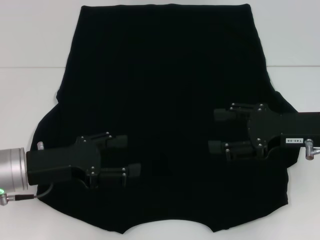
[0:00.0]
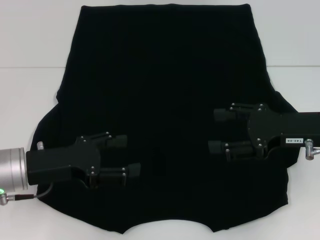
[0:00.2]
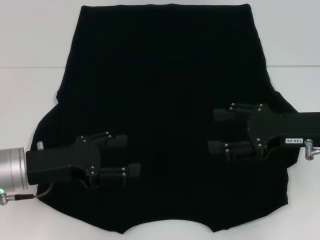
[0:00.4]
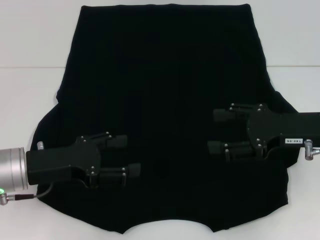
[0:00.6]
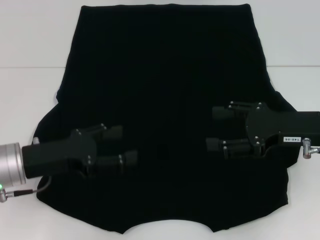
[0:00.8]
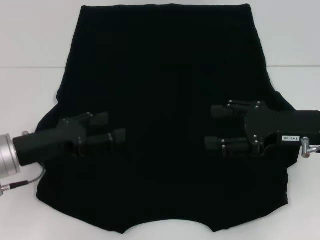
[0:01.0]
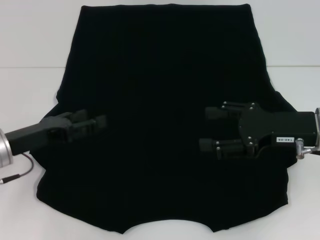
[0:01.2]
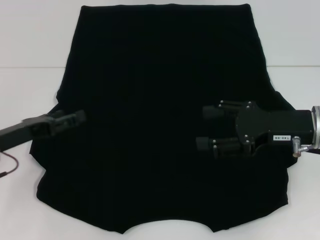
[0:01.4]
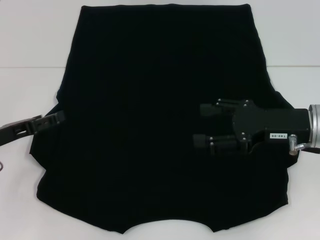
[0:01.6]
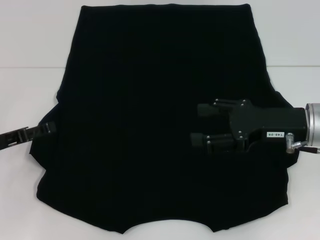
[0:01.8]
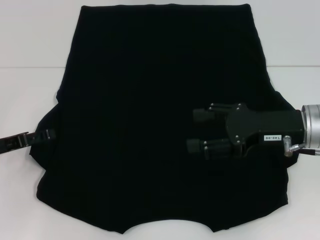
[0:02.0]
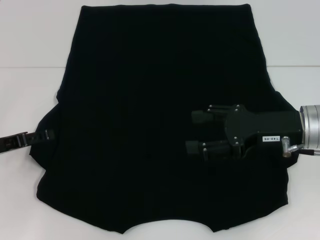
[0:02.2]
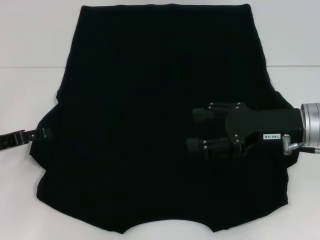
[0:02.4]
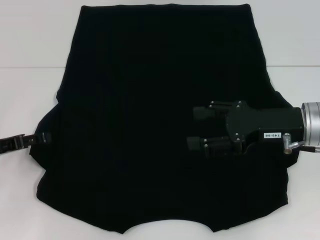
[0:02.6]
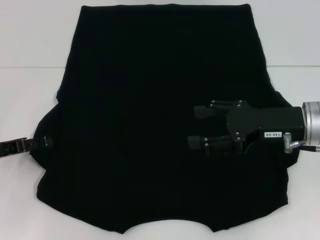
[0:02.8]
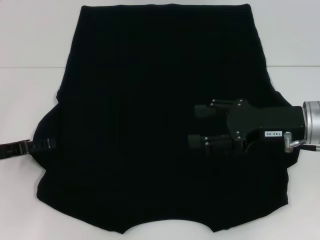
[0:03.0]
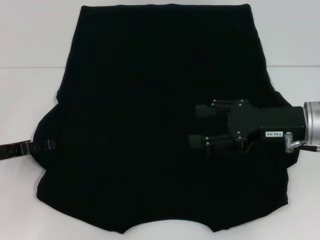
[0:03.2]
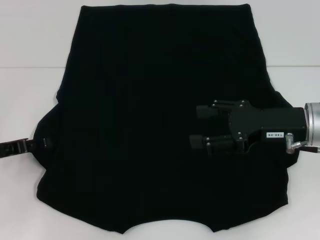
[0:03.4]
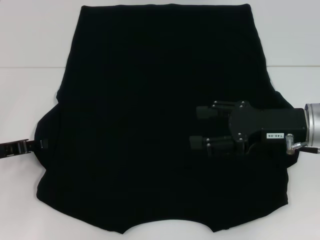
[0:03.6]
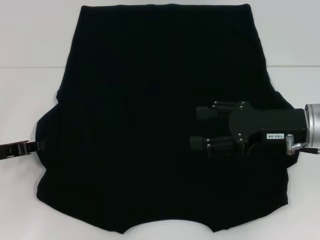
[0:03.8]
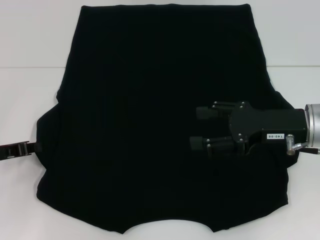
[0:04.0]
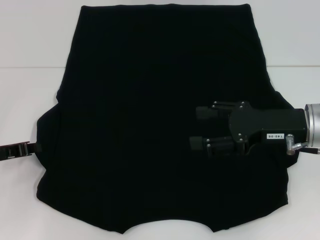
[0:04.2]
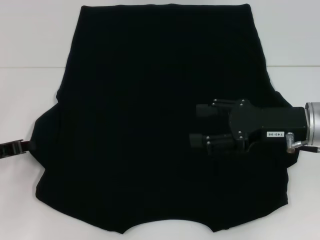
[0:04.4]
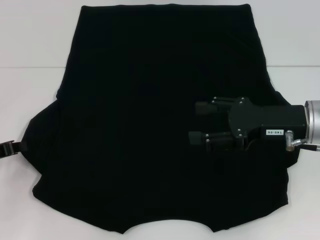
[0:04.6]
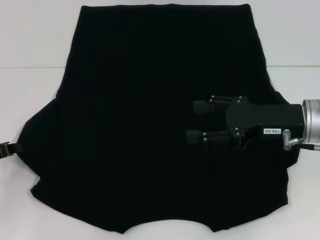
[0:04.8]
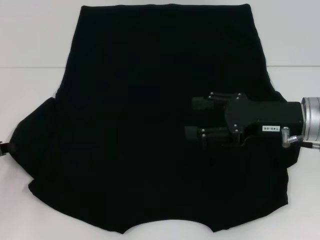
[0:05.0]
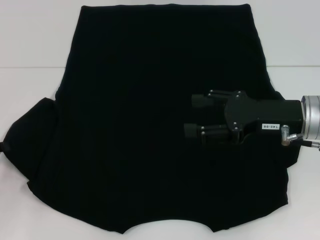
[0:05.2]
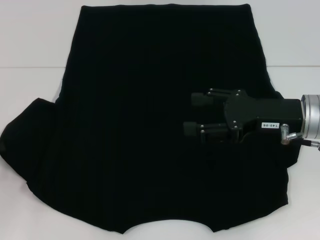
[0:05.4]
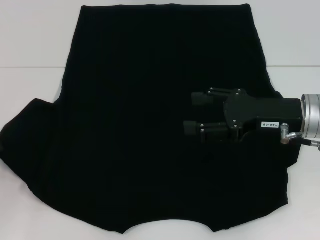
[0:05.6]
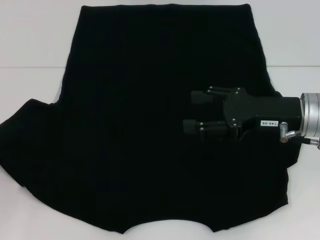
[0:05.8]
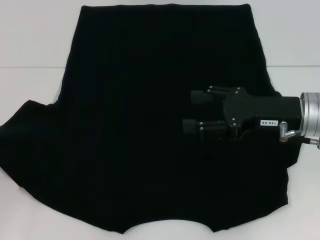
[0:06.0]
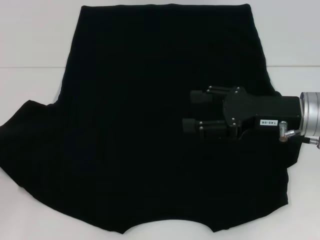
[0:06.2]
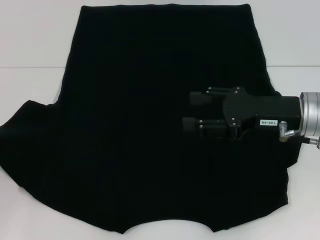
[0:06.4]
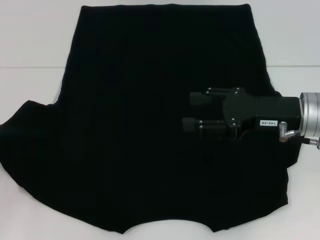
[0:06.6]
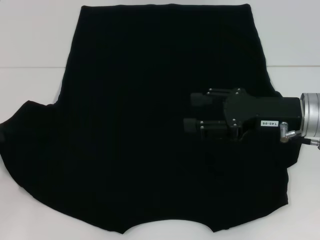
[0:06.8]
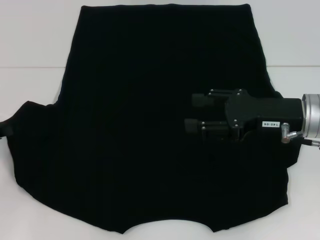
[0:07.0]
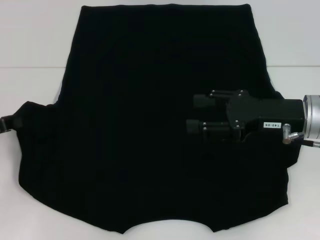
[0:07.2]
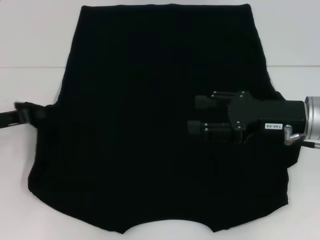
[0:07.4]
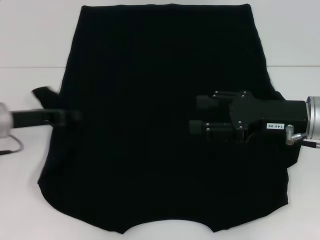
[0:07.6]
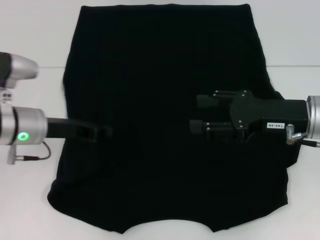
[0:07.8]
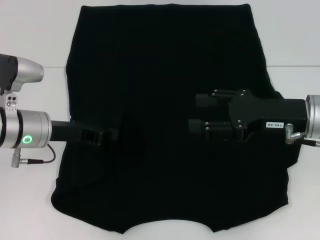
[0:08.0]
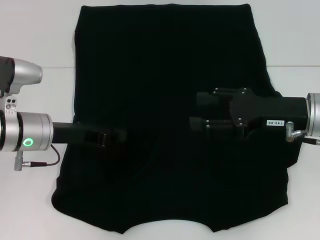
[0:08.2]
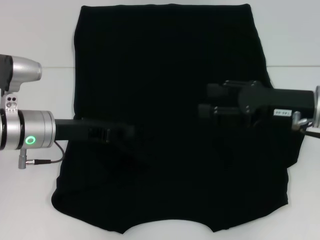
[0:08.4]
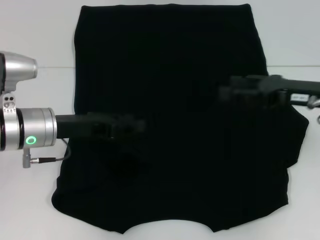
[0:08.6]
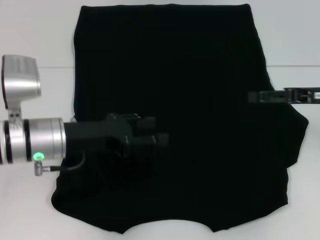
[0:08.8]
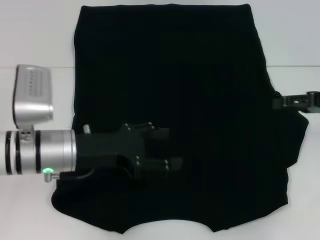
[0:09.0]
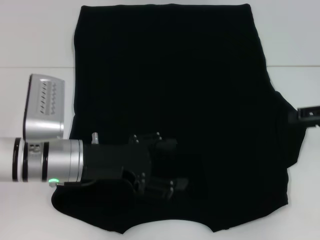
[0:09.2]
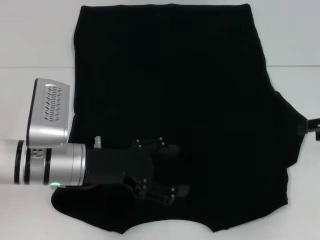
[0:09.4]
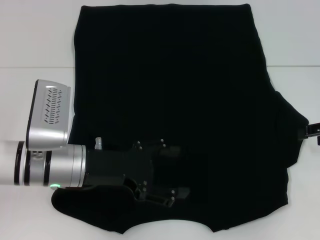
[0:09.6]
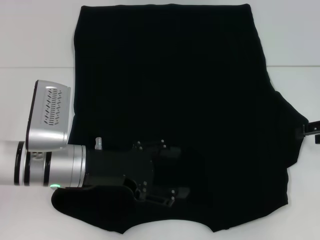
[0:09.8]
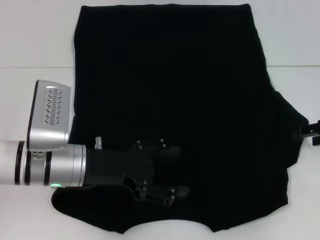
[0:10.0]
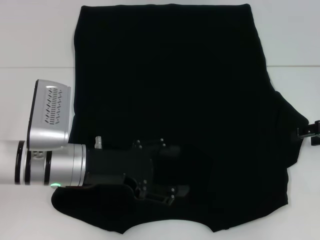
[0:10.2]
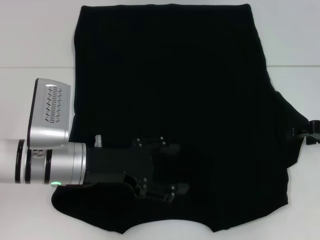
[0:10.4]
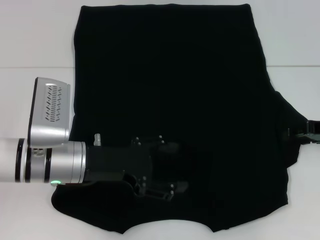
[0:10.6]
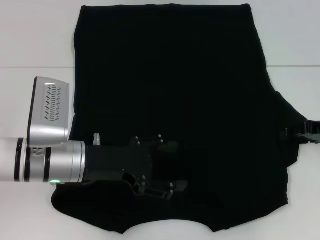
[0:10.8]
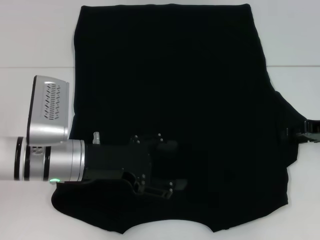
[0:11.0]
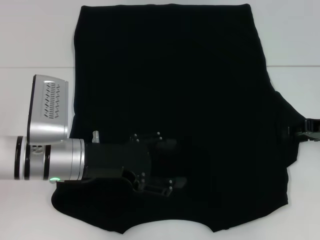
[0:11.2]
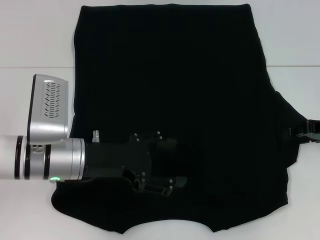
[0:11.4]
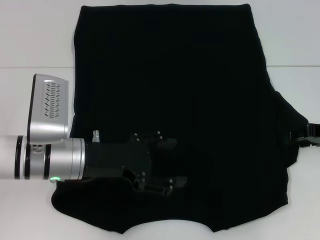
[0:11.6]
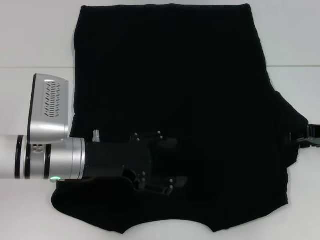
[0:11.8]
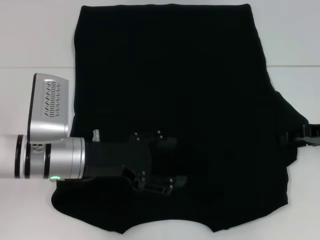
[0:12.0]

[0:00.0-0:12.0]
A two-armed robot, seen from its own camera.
Step, 0:00.0 to 0:08.2: Fold the bottom left sleeve with your left hand.
0:00.0 to 0:01.6: The left gripper heads to the left, covering about 10 cm.
0:01.6 to 0:03.0: The grippers stay close to where they were, moving slightly.
0:03.0 to 0:04.4: The left gripper closes.
0:04.4 to 0:06.0: The left gripper heads to the left, covering about 5 cm.
0:06.0 to 0:07.6: The left gripper travels to the right and forward by roughly 10 cm.
0:07.6 to 0:09.0: The grippers both shift to the right by approximately 10 cm. The left gripper opens up.
0:10.4 to 0:12.0: The grippers stay close to where they were, moving slightly.

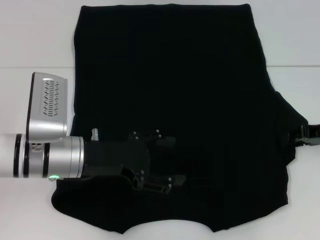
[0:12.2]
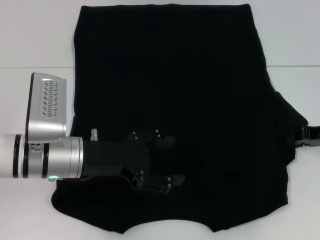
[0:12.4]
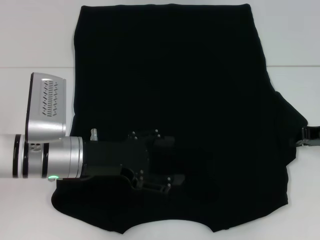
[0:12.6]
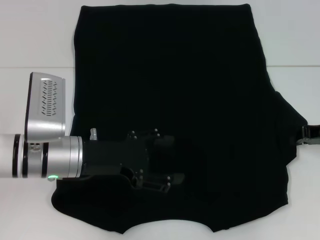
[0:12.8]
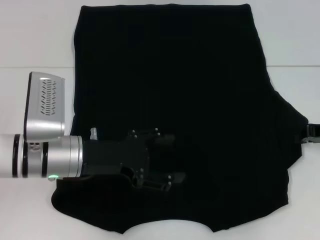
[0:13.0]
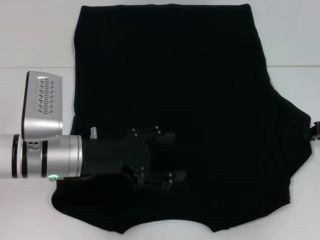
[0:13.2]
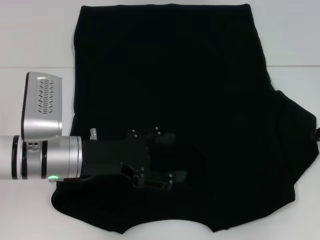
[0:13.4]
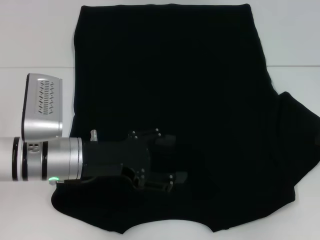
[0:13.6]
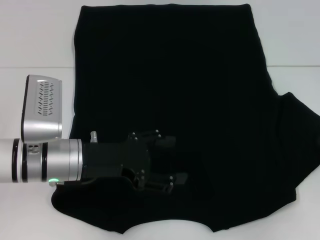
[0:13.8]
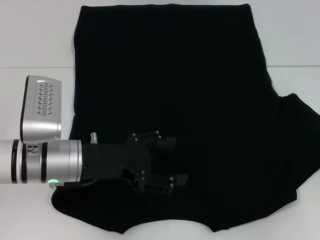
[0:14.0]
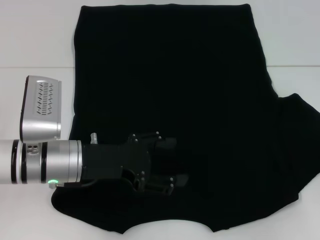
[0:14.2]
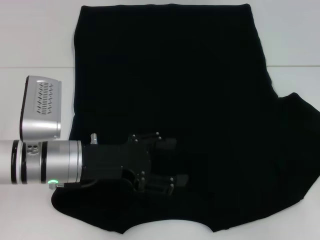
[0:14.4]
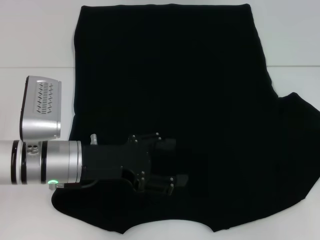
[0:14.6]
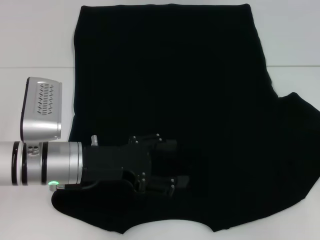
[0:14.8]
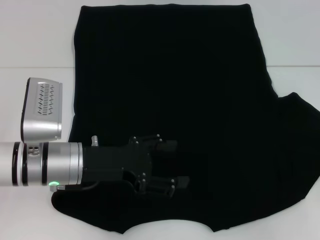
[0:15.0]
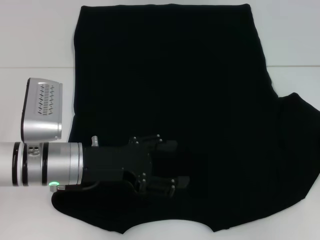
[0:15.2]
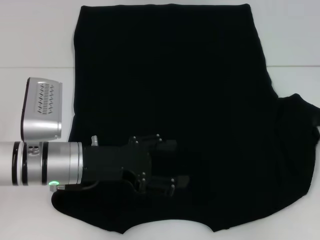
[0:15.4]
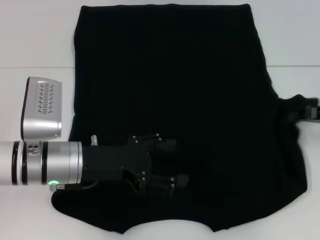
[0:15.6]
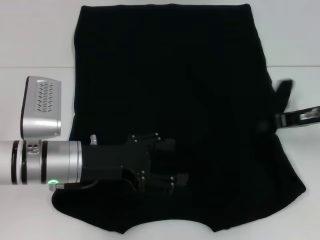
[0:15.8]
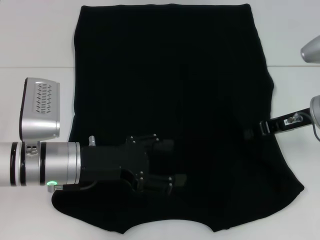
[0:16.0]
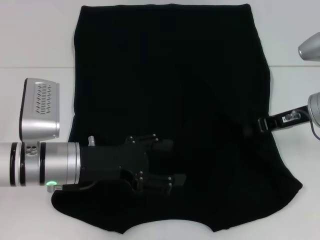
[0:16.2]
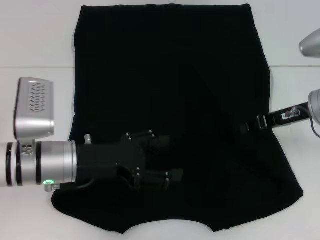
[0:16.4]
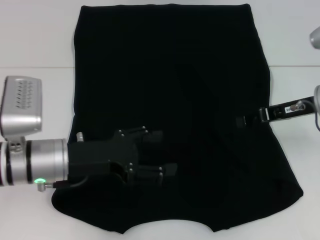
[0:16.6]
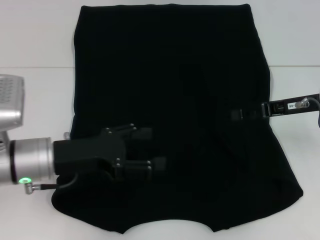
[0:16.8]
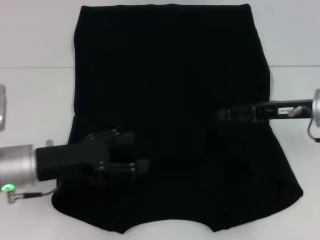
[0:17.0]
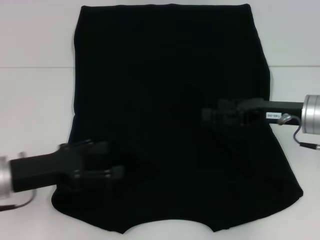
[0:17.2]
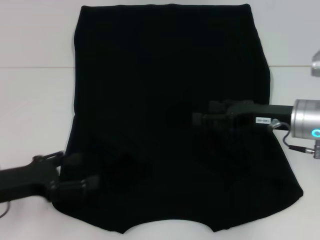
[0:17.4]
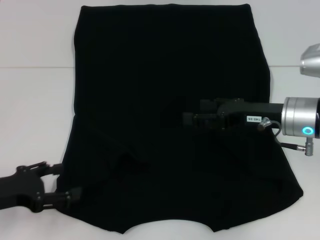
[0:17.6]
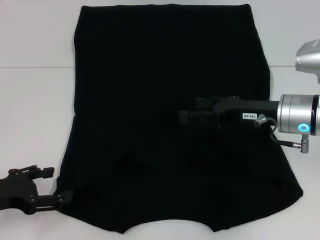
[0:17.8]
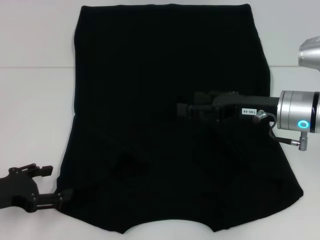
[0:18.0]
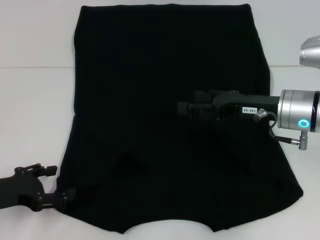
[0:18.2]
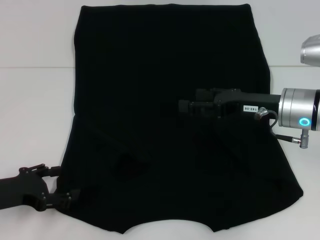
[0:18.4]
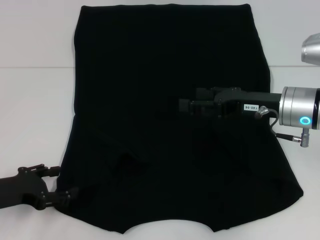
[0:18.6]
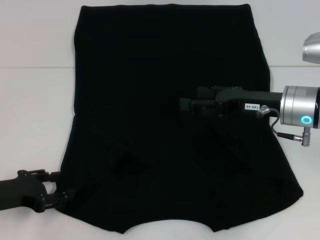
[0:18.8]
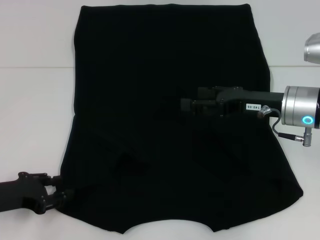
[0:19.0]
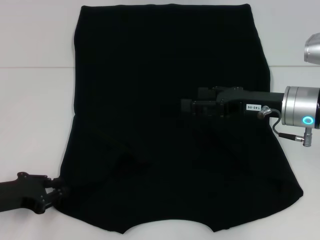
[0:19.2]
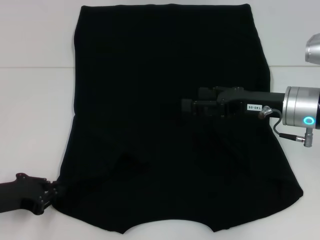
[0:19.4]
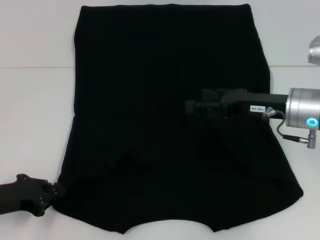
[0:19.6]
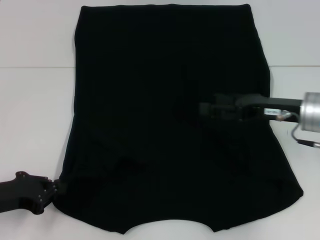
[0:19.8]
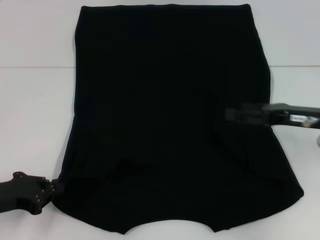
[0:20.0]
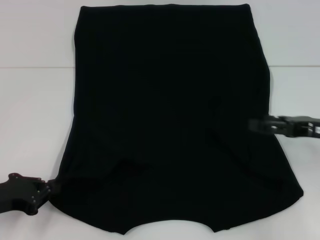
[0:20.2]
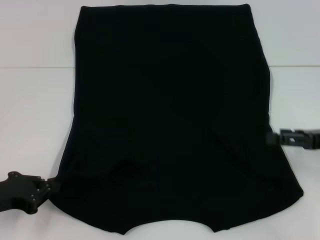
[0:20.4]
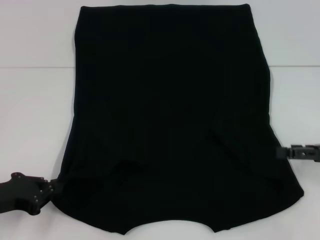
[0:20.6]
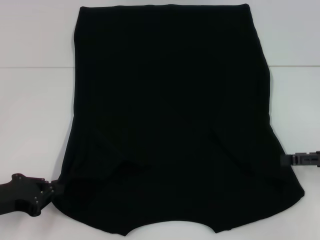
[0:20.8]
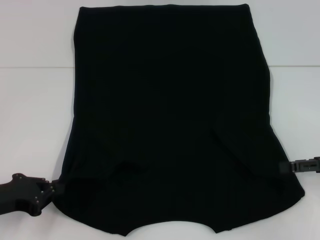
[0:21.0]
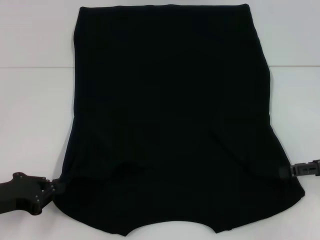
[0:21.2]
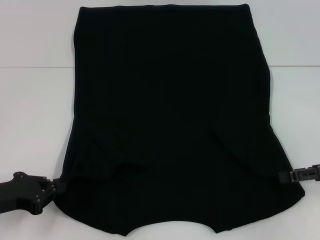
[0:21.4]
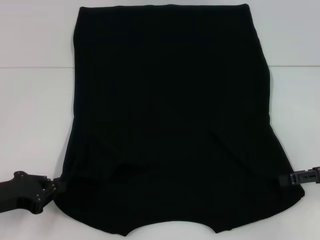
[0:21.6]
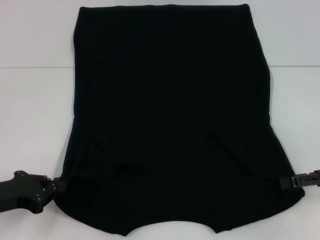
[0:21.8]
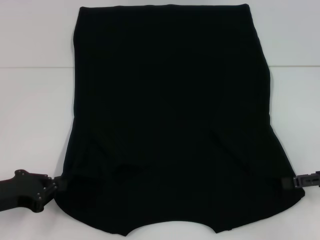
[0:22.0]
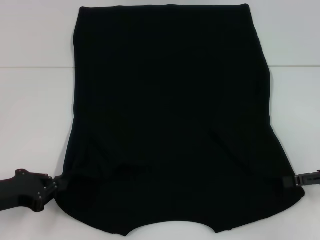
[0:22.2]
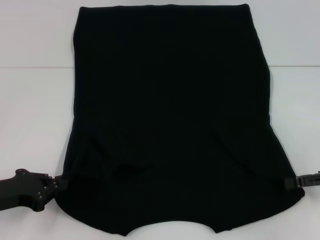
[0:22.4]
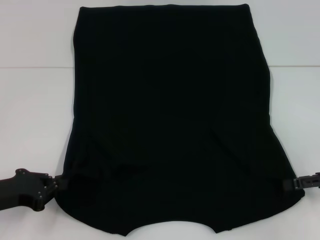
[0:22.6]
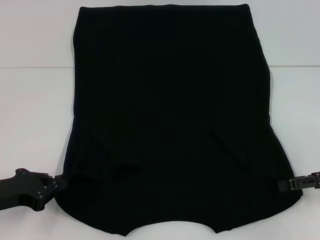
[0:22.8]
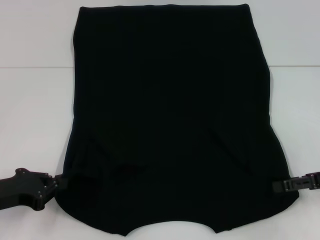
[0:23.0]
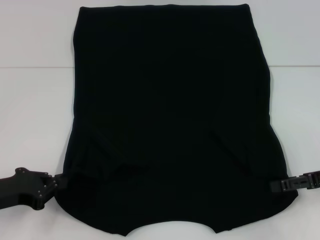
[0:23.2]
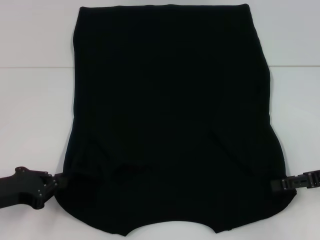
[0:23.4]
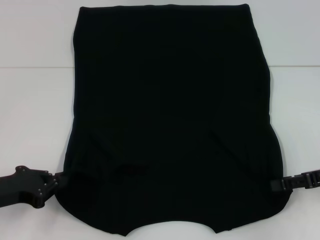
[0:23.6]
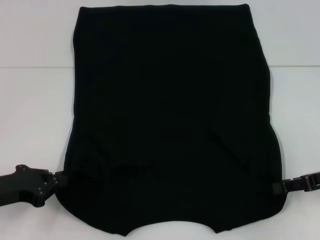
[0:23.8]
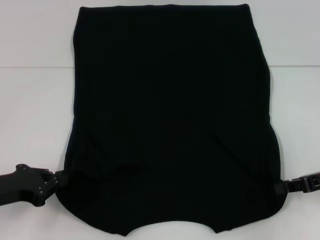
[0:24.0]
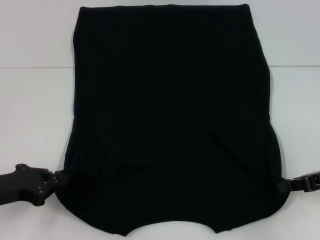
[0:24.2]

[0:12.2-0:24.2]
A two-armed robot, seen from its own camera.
Step, 0:12.2 to 0:16.8: Fold the bottom right sleeve with your right hand.
Step, 0:17.0 to 0:19.8: Grab the bottom left corner with your left hand.
Step, 0:20.0 to 0:23.6: Grab the bottom right corner with your right hand.
0:12.2 to 0:13.8: The right gripper shifts roughly 5 cm to the right, and closes up.
0:13.8 to 0:15.2: The grippers move only a little.
0:15.2 to 0:16.6: The right gripper goes roughly 15 cm to the left.
0:16.6 to 0:18.2: The left gripper heads to the left, covering some 10 cm; the right gripper goes some 5 cm to the left, and opens its fingers.
0:18.2 to 0:19.8: The left gripper closes up.
0:19.8 to 0:21.2: The right gripper is displaced to the right by roughly 10 cm.
0:21.2 to 0:22.6: The grippers move only a little.
0:22.6 to 0:24.2: The right gripper closes up.
